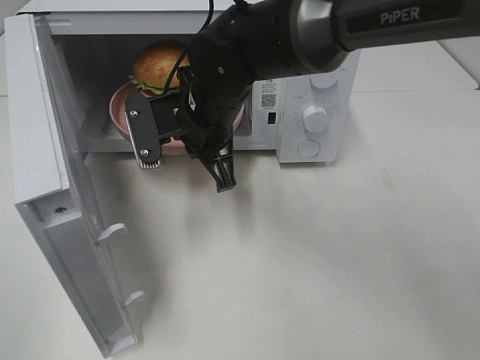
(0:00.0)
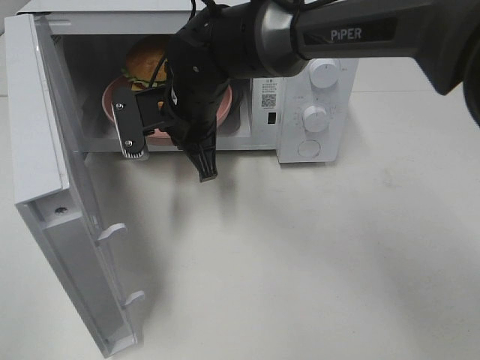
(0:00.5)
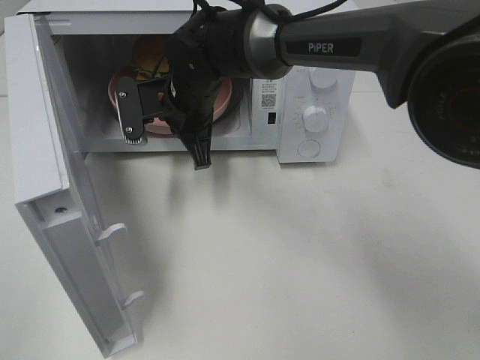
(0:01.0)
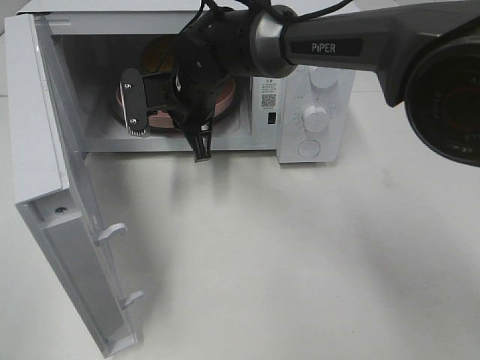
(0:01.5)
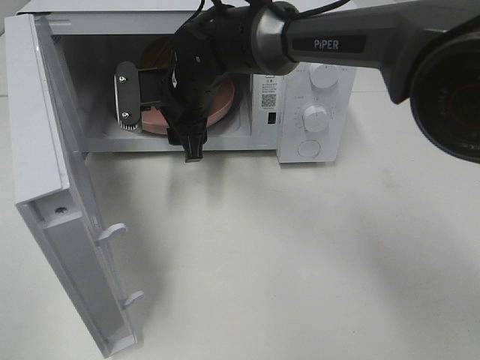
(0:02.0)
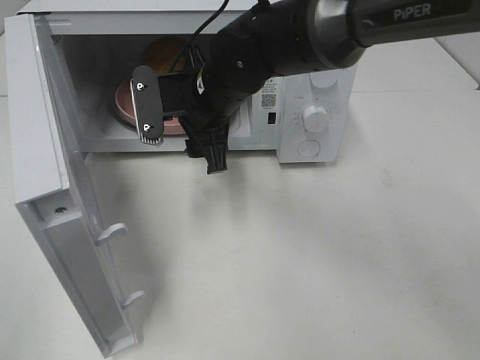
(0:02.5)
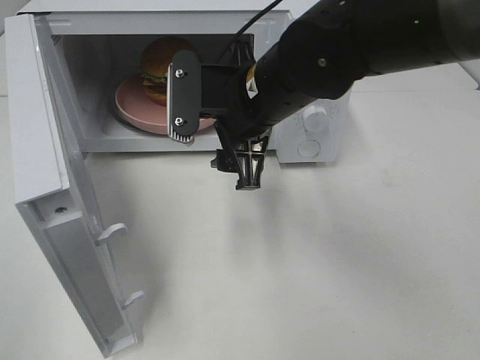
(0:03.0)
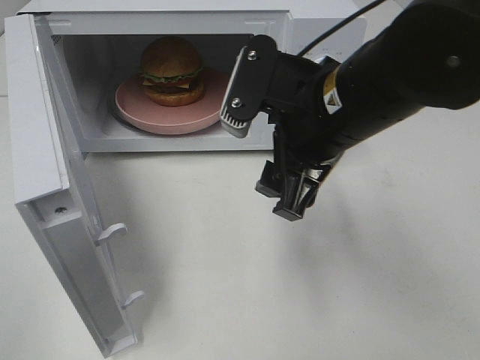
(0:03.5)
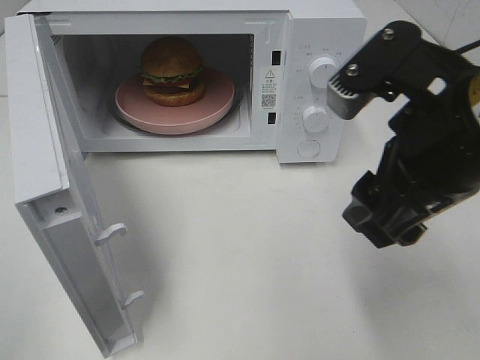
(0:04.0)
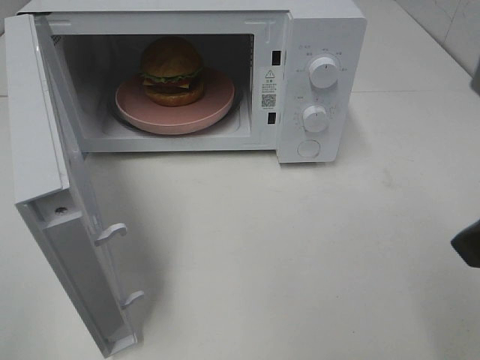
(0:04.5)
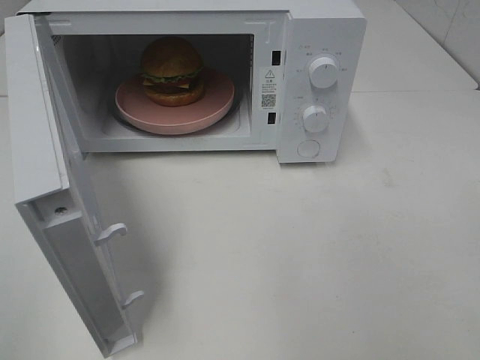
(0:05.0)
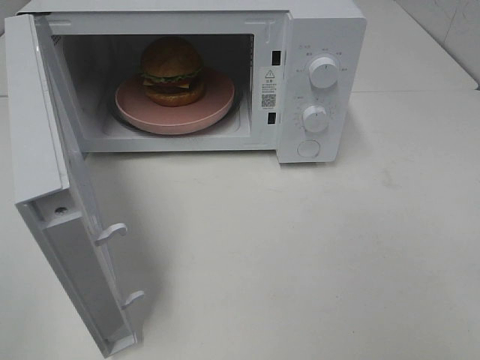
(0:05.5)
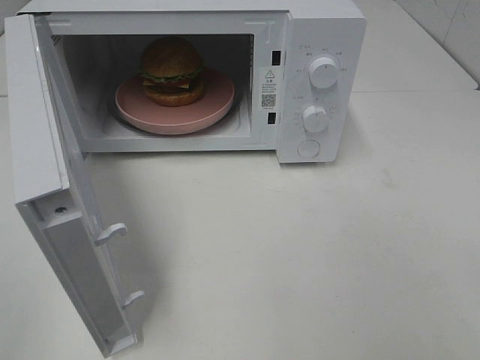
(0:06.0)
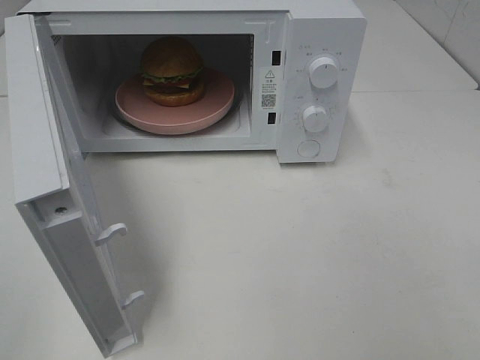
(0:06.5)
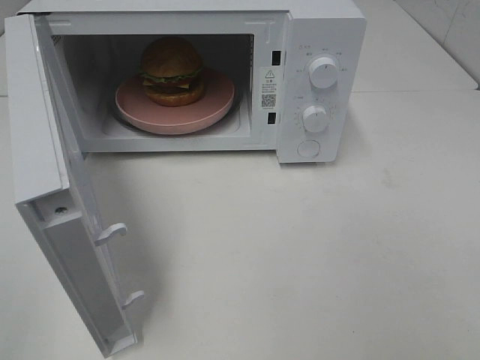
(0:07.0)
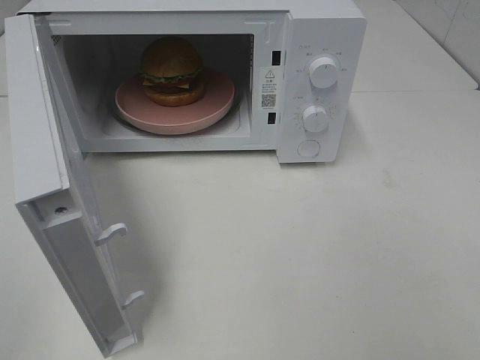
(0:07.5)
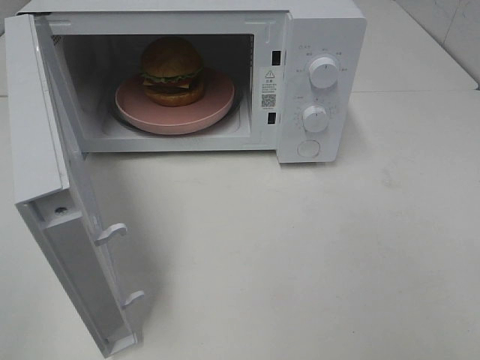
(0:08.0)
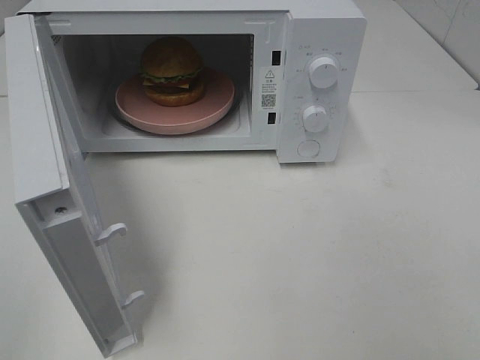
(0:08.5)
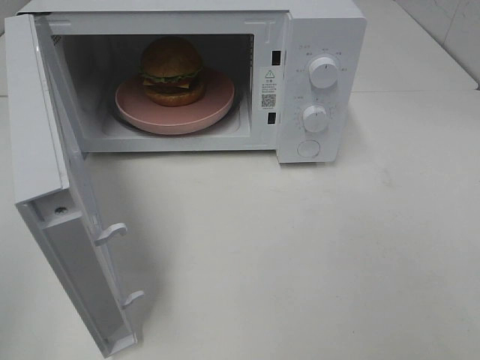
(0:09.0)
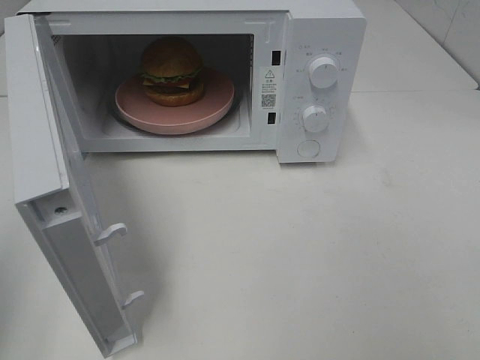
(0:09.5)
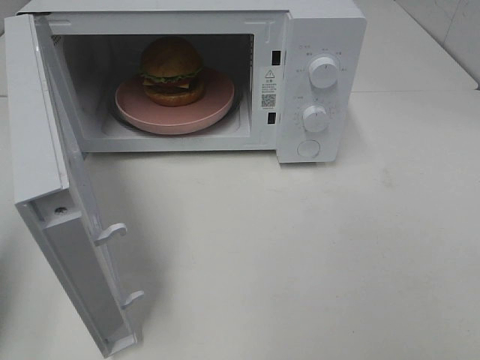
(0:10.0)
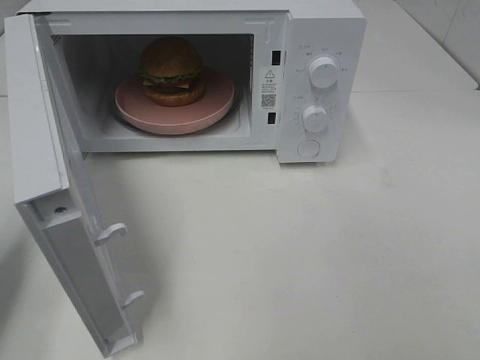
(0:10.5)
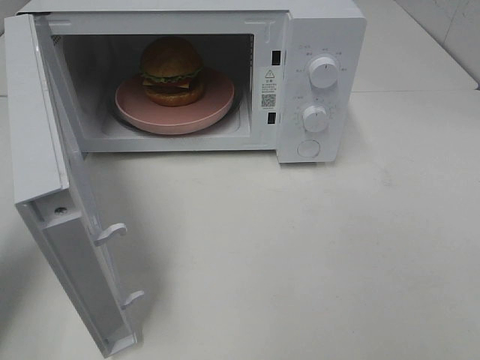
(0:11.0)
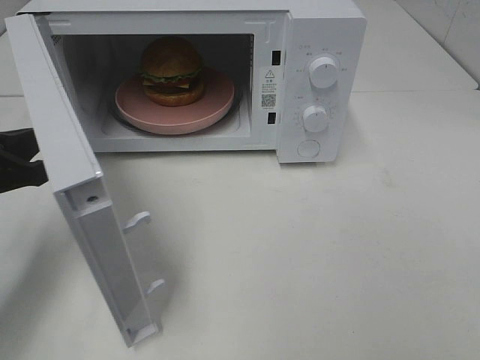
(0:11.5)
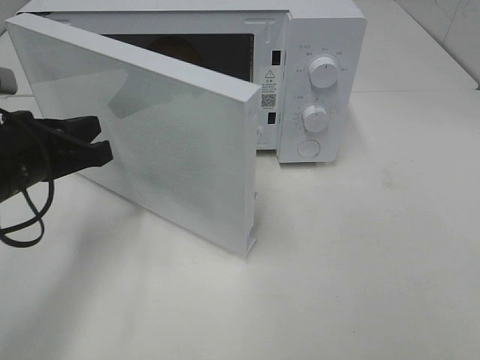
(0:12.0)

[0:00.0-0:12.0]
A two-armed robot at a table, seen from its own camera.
Task of the whole recording: Heat the burger.
0:00.0 to 0:02.0: The right gripper travels forward by approximately 5 cm, and opens up.
0:02.0 to 0:04.0: The right gripper travels backward, to the right and upward by roughly 30 cm.
0:04.0 to 0:06.0: The right gripper is displaced backward and to the right by roughly 25 cm.
0:06.0 to 0:08.0: Both grippers stay put.
0:08.0 to 0:10.0: The left gripper shifts some 15 cm forward, and closes its fingers.
0:10.0 to 0:12.0: The left gripper is displaced to the right, forward and downward by approximately 20 cm.

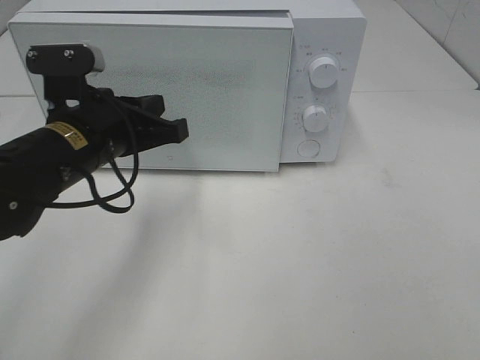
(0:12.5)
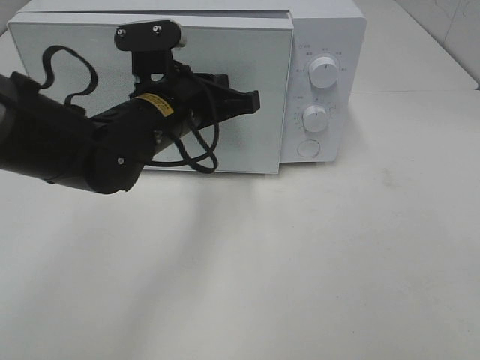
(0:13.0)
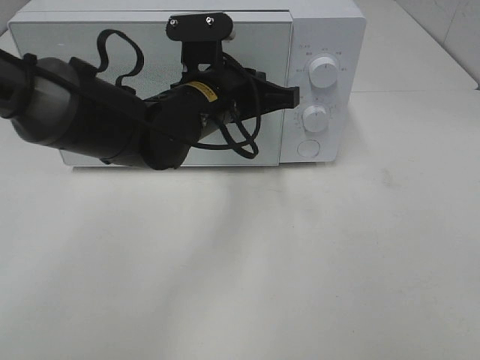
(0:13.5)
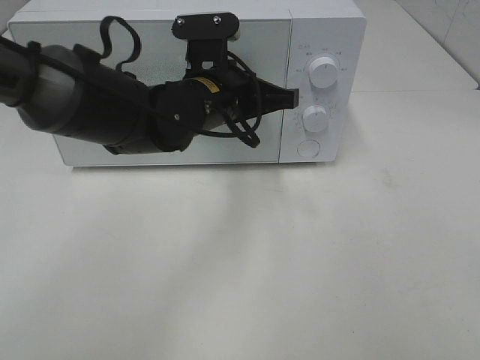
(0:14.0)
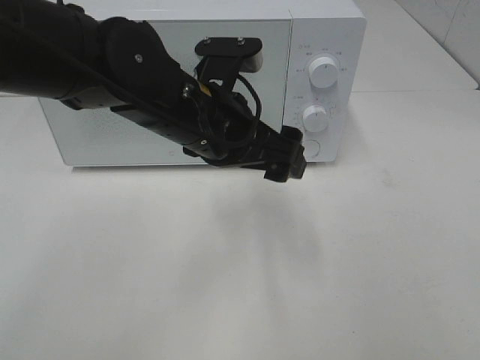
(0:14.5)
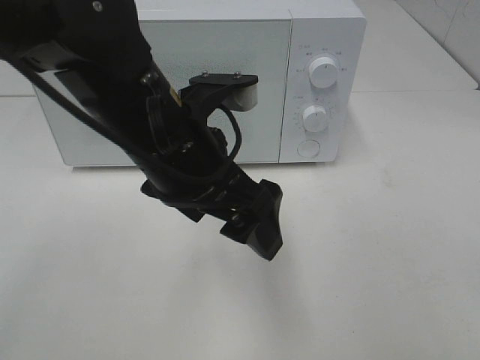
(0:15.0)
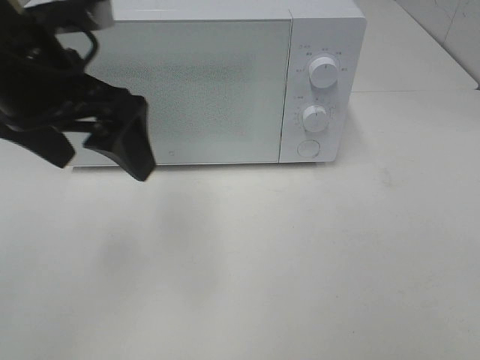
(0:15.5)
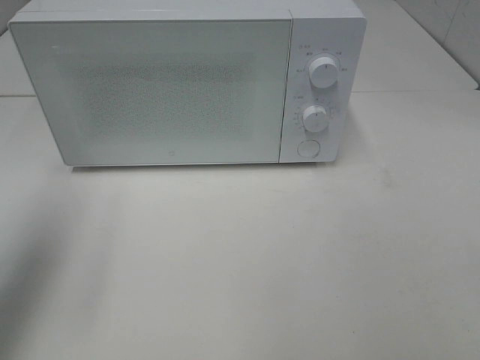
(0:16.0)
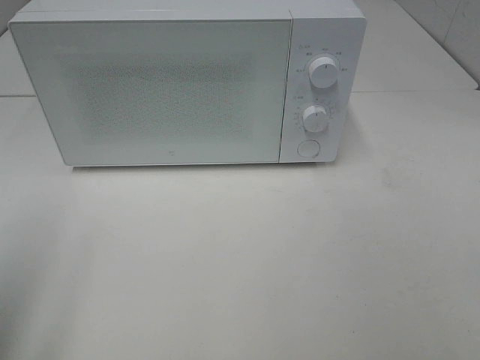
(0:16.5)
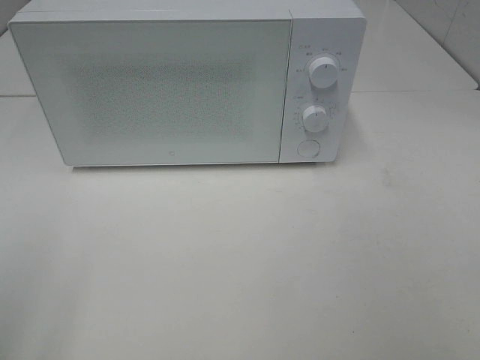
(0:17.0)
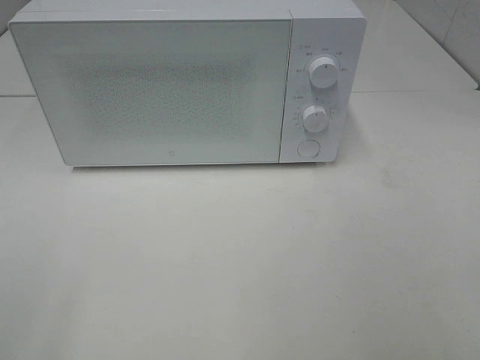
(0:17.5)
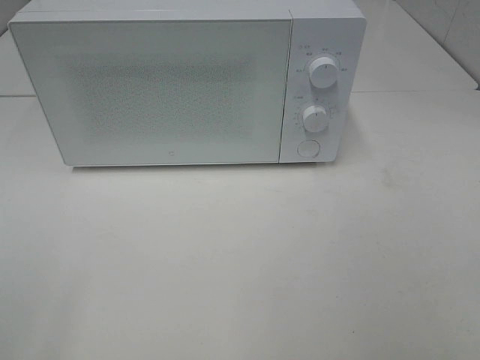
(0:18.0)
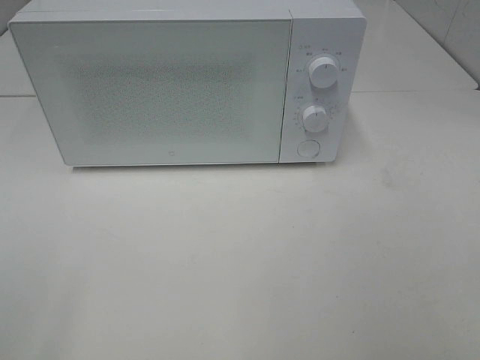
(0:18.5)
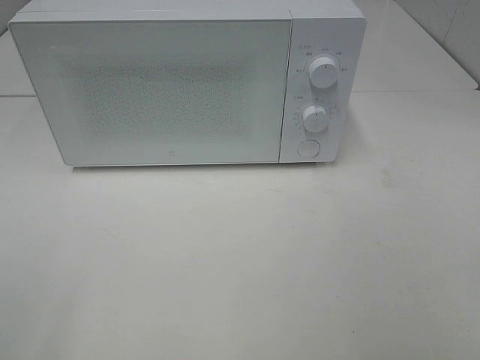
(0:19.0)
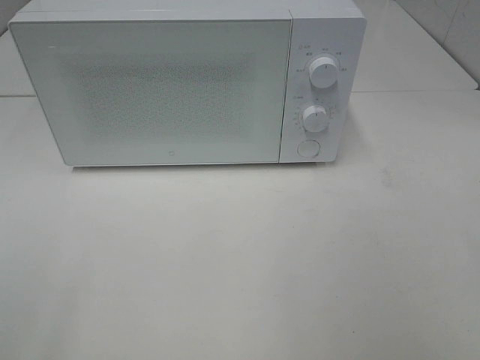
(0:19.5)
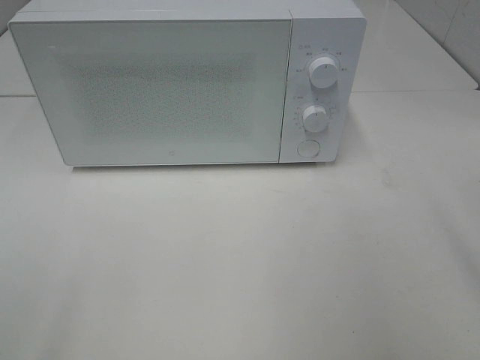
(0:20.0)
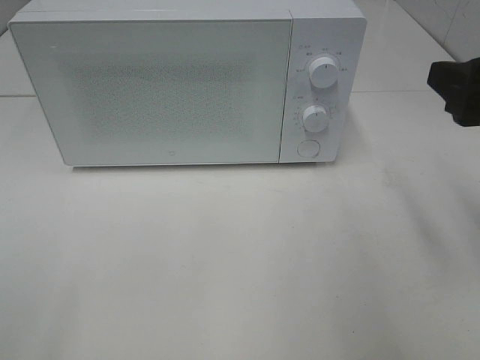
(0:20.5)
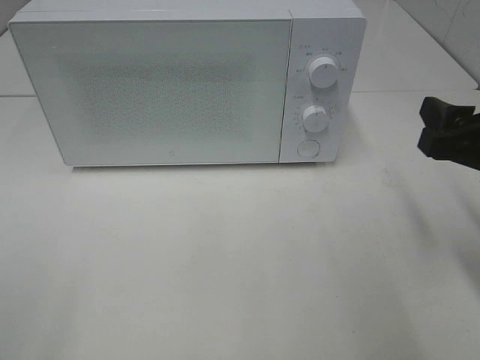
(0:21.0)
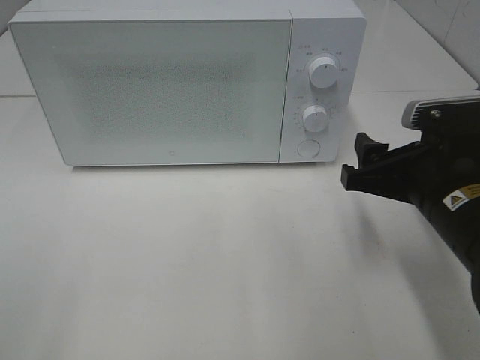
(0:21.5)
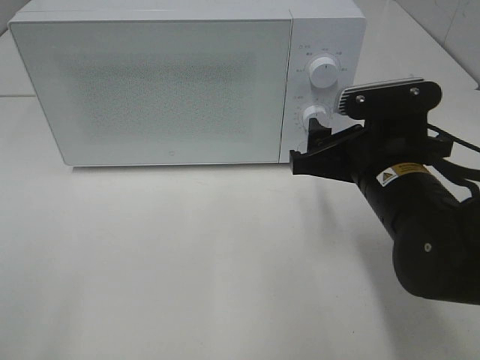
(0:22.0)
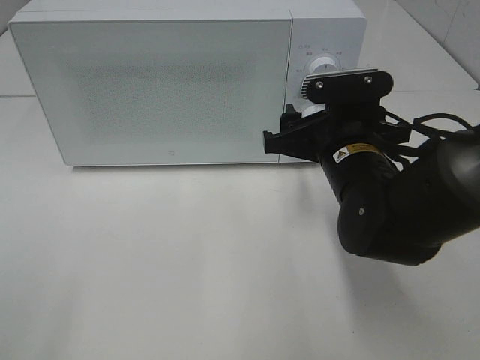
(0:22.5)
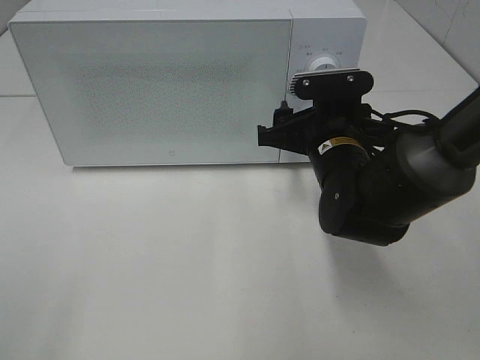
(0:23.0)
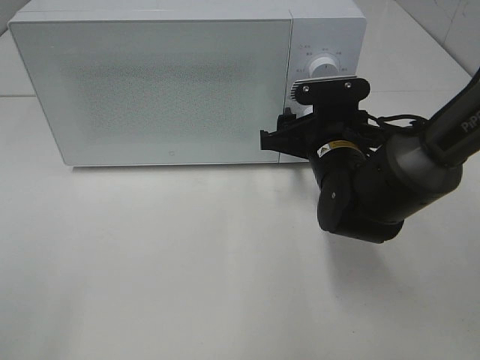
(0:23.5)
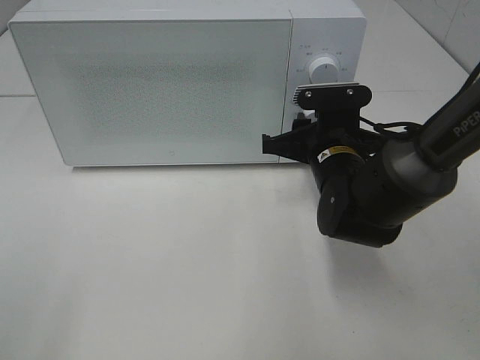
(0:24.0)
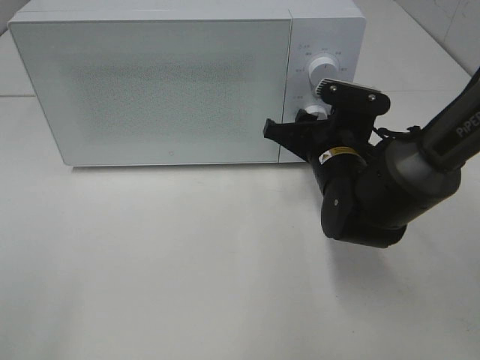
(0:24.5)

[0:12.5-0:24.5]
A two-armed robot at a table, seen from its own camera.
Task of the whole recording: Heat the burger.
0:12.5 to 0:14.5: The left gripper travels to the right by about 10 cm, and opens up.
0:14.5 to 0:16.5: The left gripper shifts about 35 cm to the left and backward.
0:18.5 to 0:20.5: The right gripper moves forward, roughly 20 cm.
0:20.5 to 0:22.5: The right gripper travels to the left, downward and forward by roughly 20 cm.
0:22.5 to 0:24.5: The right gripper changes place by some 5 cm, and closes its fingers.

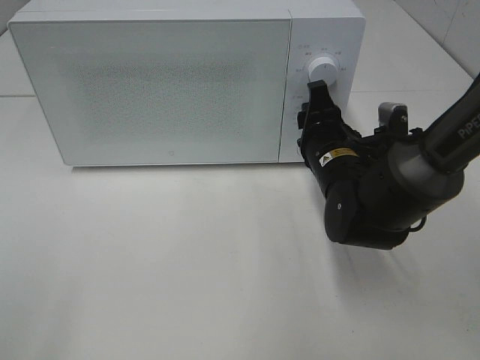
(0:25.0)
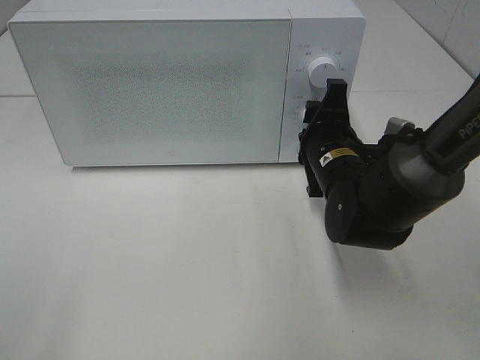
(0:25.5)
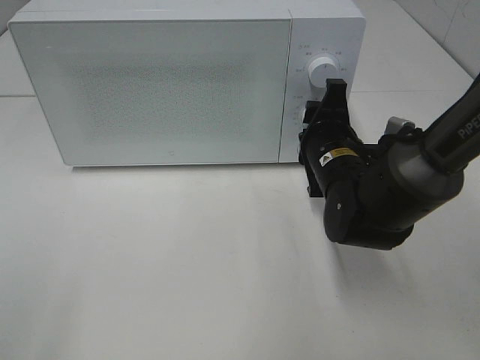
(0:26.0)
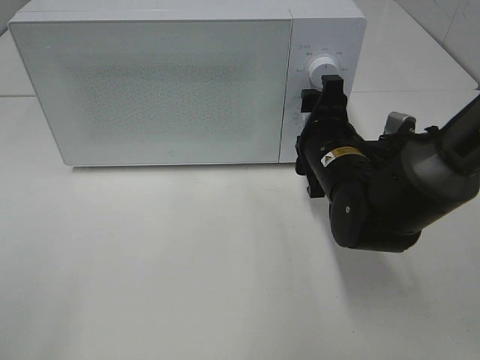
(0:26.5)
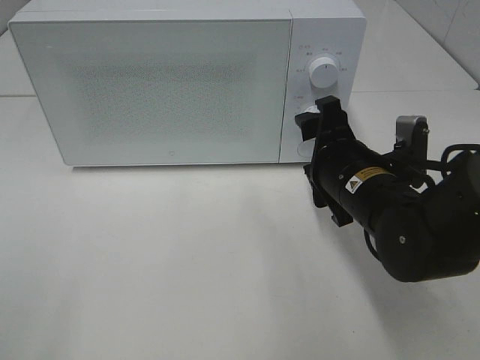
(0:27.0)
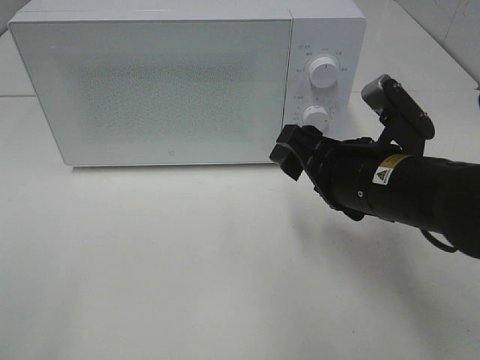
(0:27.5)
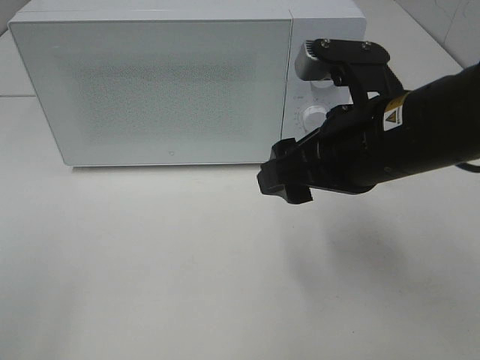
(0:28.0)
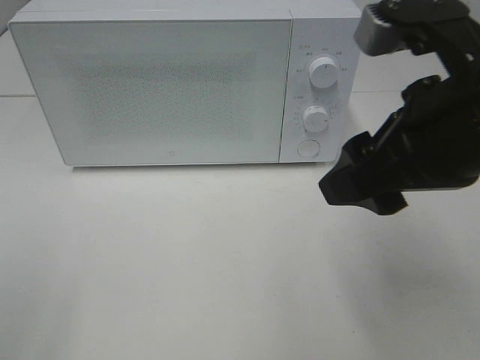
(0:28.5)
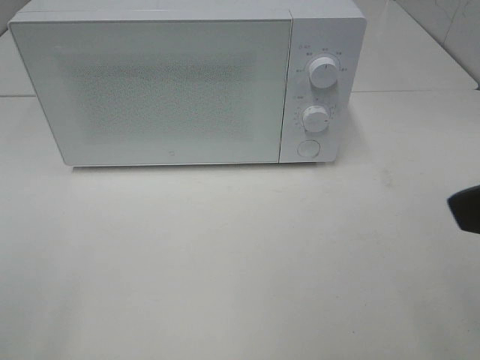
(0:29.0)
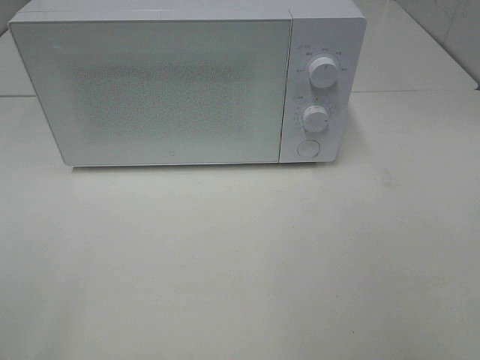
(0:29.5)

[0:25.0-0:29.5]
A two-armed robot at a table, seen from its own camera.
Task of the whole recording: Heat the burger.
0:25.0 to 0:27.0: The right gripper shifts about 5 cm backward.
0:27.0 to 0:29.5: The right gripper is displaced backward, upward and to the right by approximately 30 cm.
